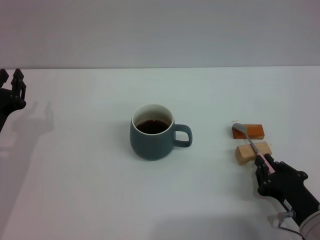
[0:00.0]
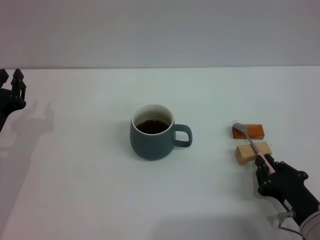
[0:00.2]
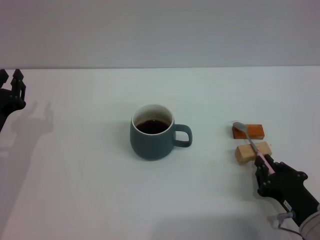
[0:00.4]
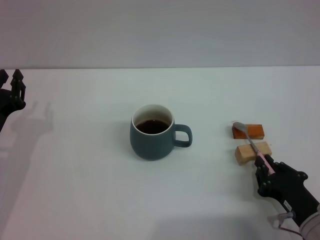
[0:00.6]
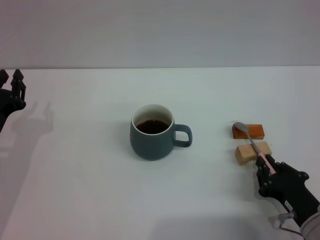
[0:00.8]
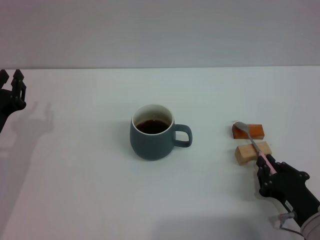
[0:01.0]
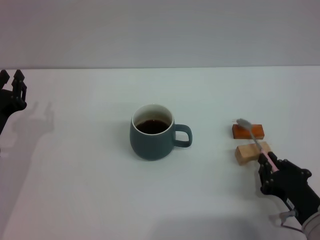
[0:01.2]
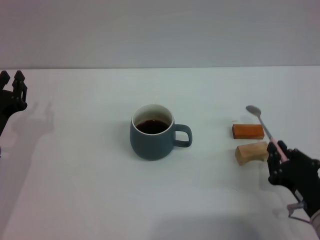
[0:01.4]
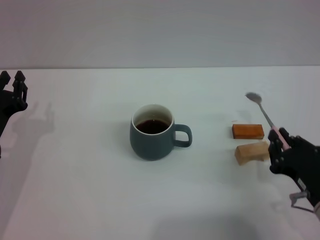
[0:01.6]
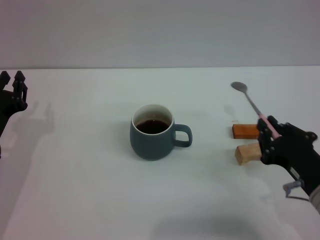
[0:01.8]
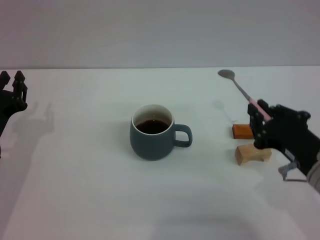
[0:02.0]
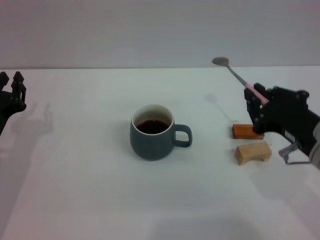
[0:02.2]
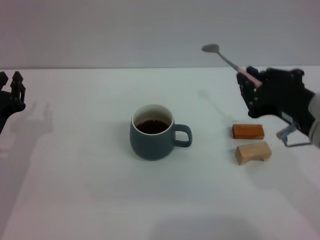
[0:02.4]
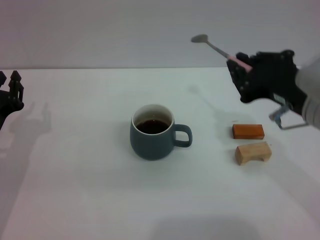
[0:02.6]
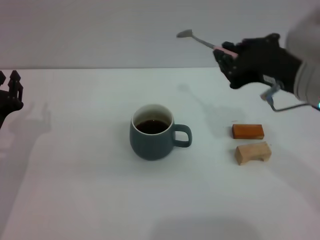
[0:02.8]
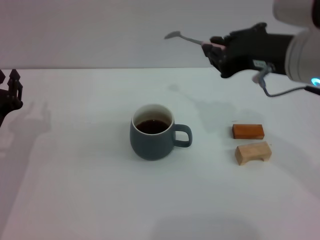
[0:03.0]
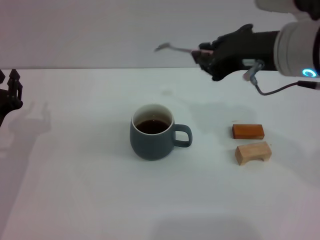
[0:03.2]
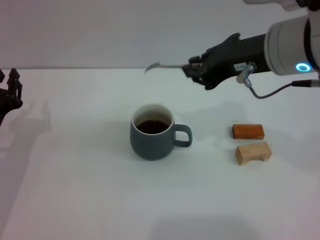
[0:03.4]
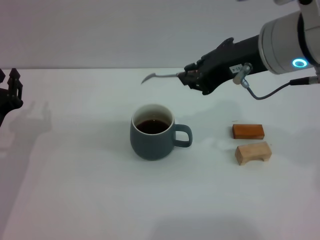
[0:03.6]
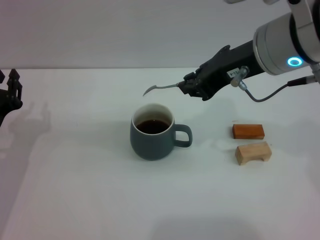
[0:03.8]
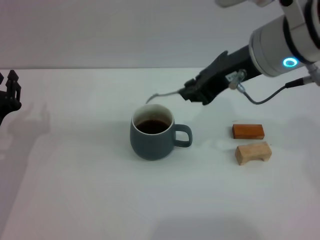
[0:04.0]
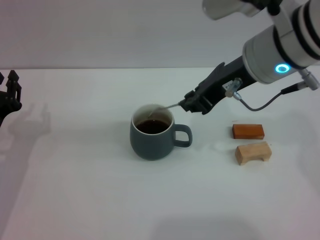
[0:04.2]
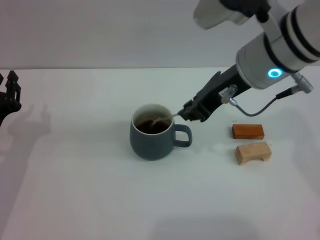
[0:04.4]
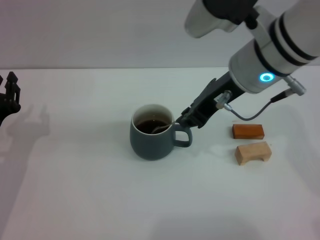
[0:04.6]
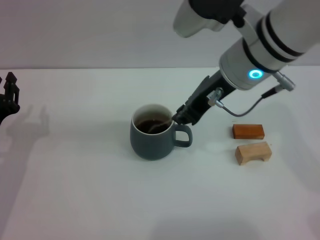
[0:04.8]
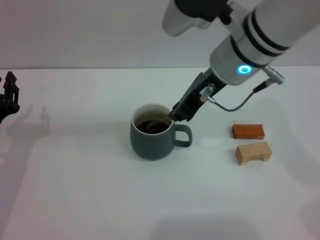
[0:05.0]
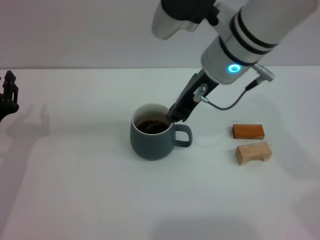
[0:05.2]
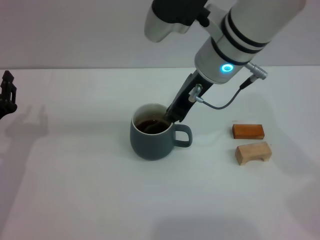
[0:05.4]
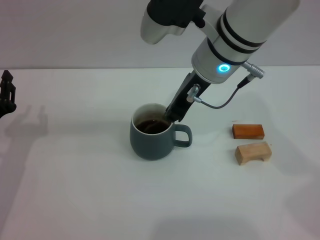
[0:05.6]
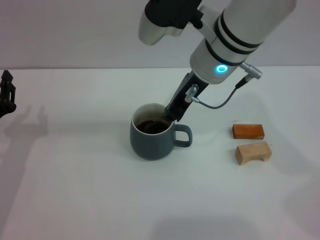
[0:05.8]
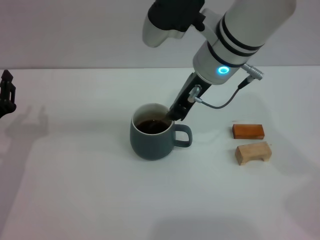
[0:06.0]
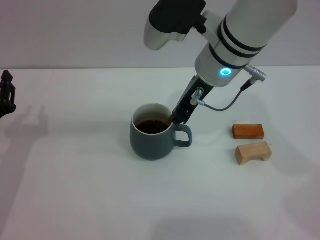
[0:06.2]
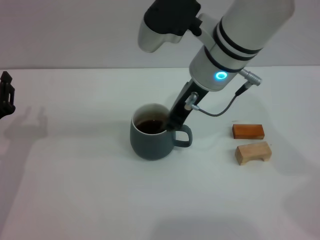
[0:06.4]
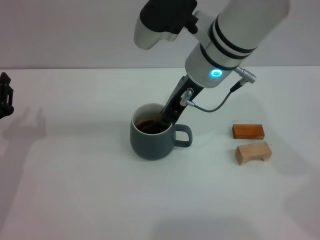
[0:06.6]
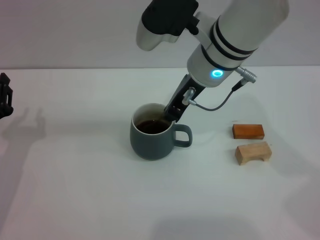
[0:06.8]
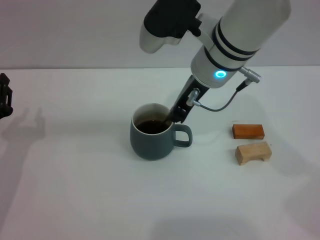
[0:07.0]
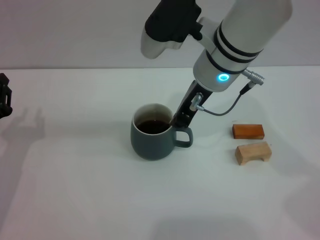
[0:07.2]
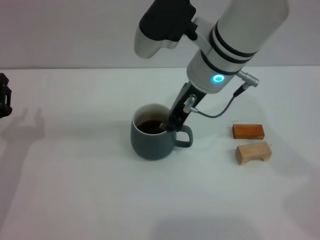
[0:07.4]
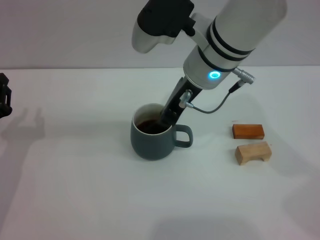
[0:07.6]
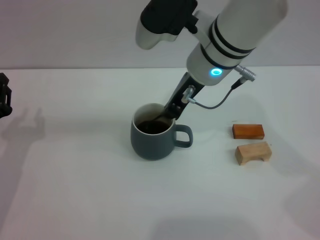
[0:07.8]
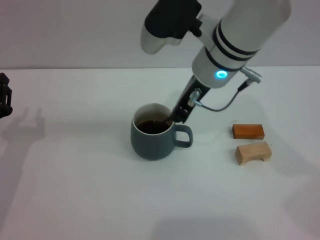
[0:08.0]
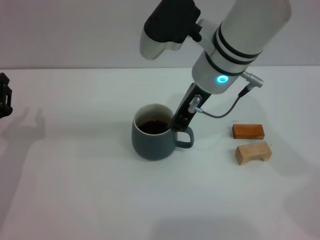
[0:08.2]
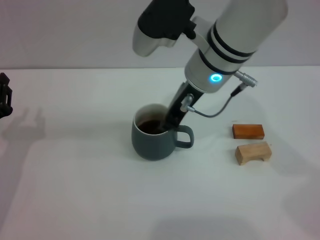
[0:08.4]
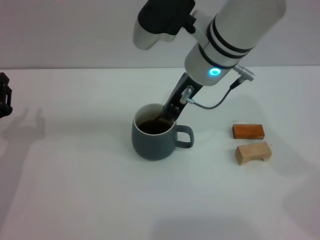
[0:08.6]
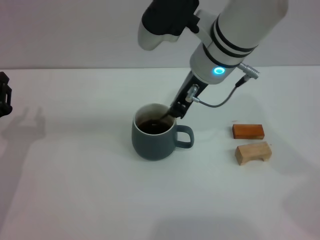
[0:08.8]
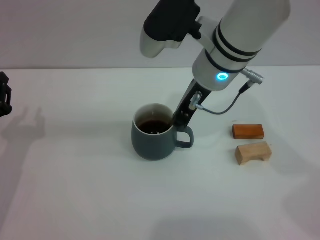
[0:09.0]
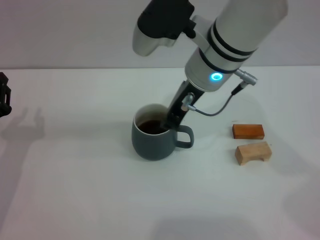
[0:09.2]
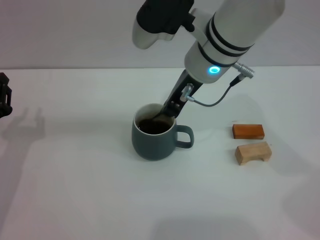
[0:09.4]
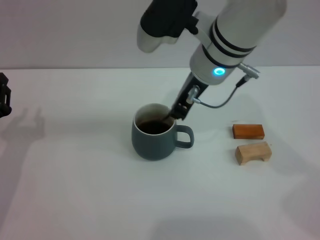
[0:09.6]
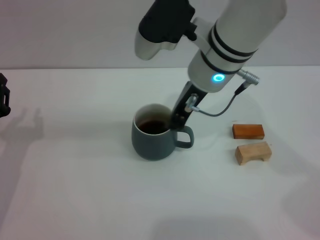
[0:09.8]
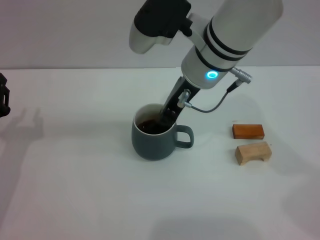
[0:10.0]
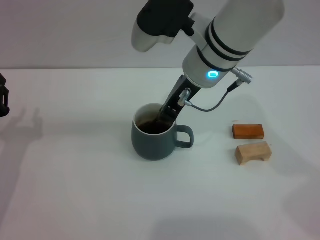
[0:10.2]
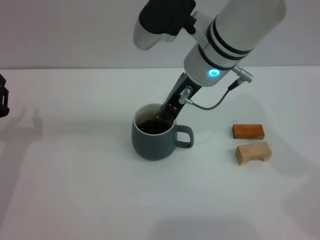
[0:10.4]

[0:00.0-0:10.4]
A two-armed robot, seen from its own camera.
Task of the whole recording: Move the grey cup to the center, lift the pink spoon, stir it three times in the cup, and put the spoon into the cup.
0:00.0 to 0:01.4: The grippers move only a little.
0:01.4 to 0:03.0: The right gripper heads upward and forward, covering approximately 25 cm.
0:03.0 to 0:04.4: The right gripper moves some 5 cm.
0:04.4 to 0:06.0: The right gripper shifts about 5 cm to the left.
0:06.0 to 0:09.0: The grippers stay close to where they were, moving slightly.
0:09.0 to 0:10.4: Neither gripper changes place.

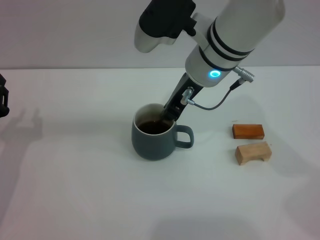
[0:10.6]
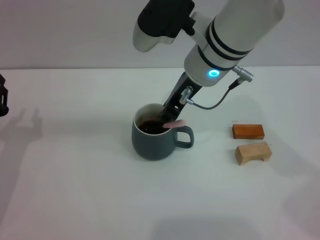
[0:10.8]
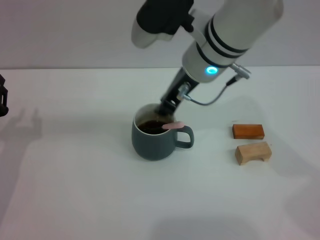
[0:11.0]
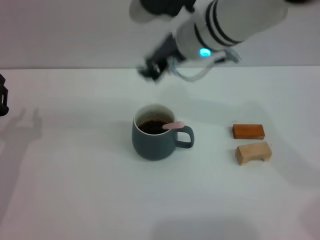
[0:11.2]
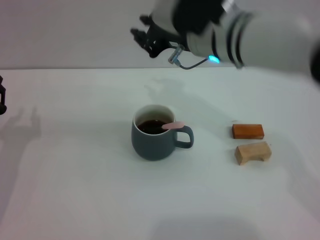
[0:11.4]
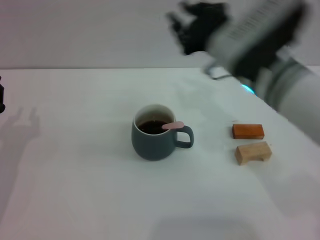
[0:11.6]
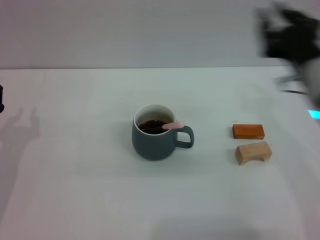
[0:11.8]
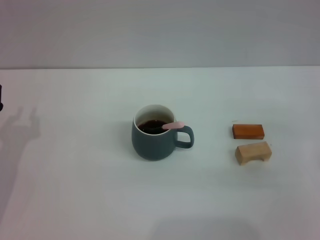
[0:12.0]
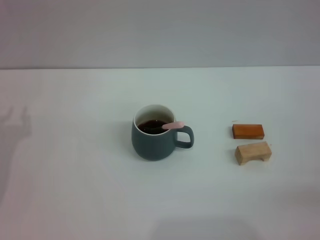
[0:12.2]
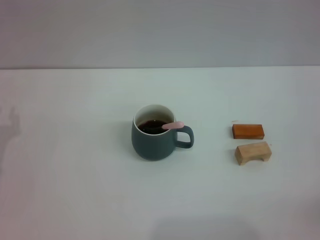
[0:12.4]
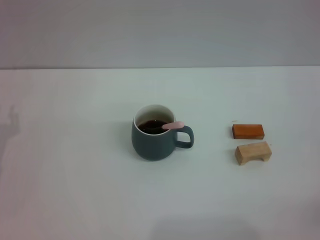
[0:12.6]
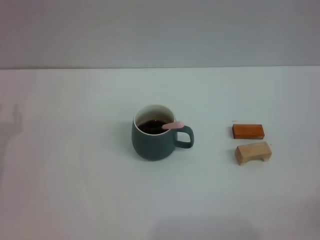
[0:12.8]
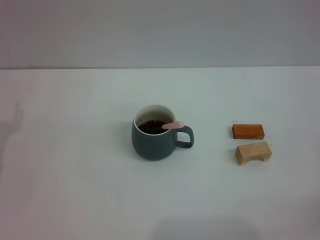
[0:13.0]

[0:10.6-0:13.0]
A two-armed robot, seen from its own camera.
Task of the whole recording: Move the grey cup to the center, lift the pink spoon, stir it three times in the cup, and put the spoon into the cup.
0:10.6 to 0:11.8: The right gripper goes about 20 cm to the right, backward and downward, and opens its fingers.
0:11.8 to 0:13.0: The right gripper is displaced to the right, downward and backward by some 20 cm.
